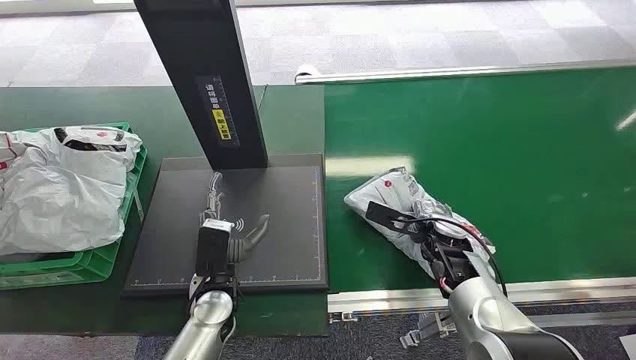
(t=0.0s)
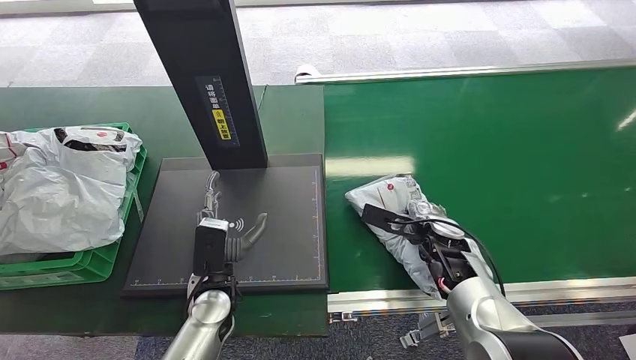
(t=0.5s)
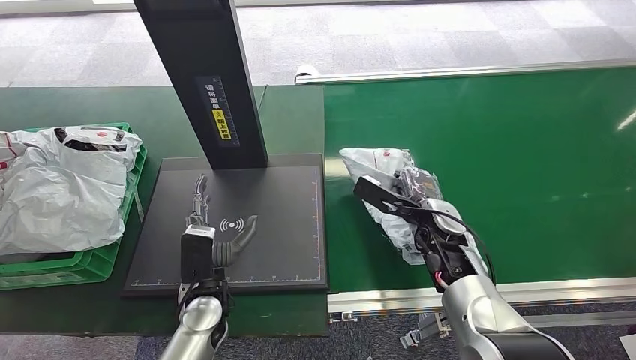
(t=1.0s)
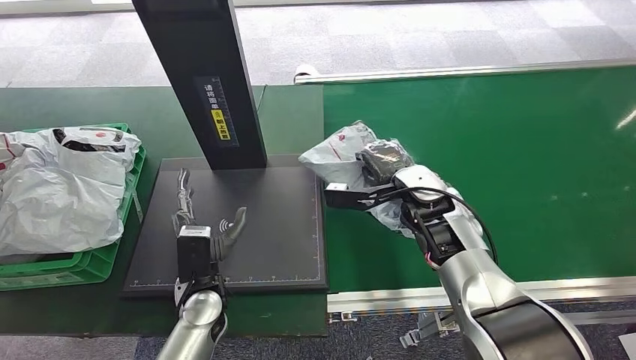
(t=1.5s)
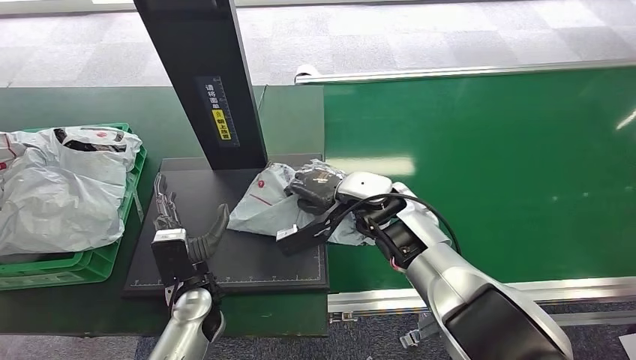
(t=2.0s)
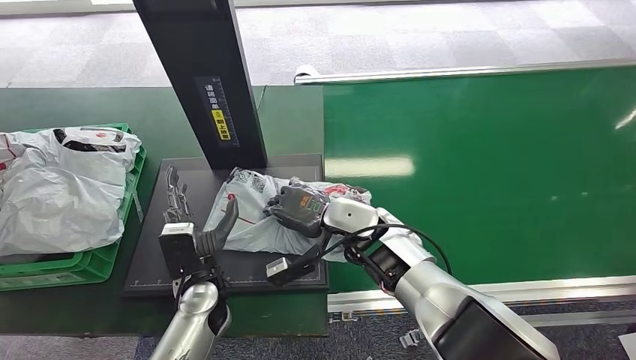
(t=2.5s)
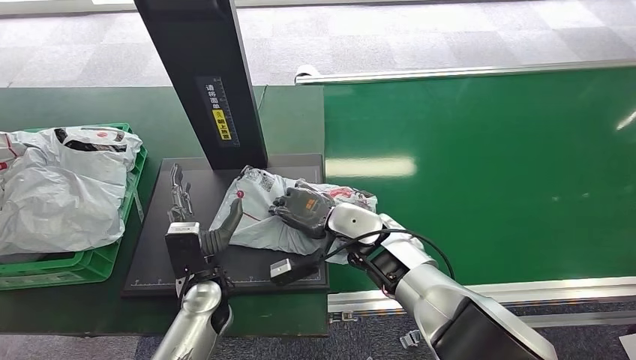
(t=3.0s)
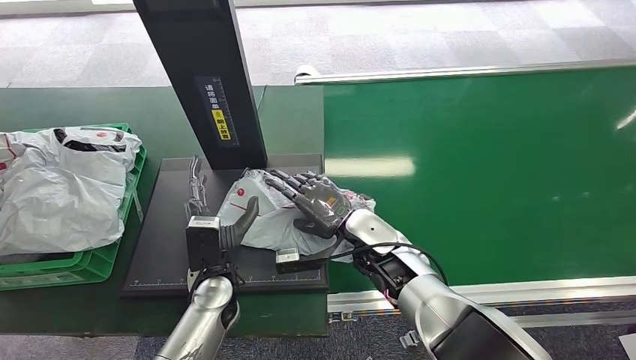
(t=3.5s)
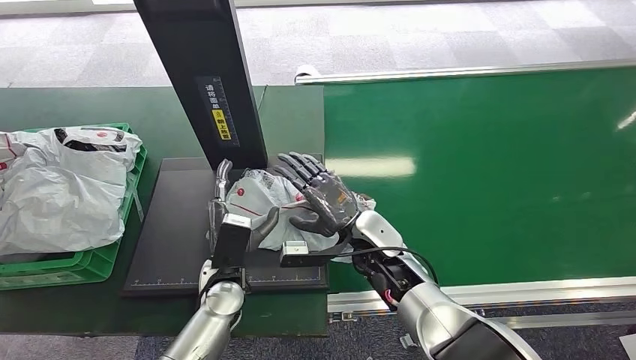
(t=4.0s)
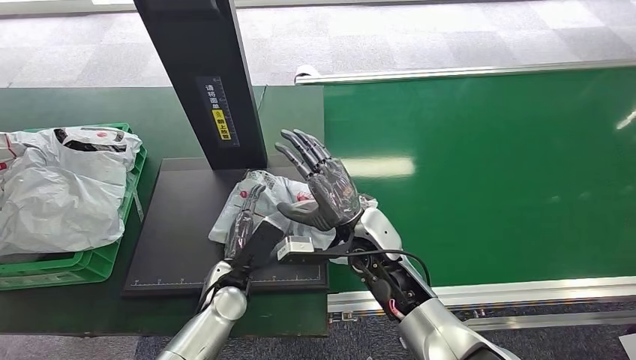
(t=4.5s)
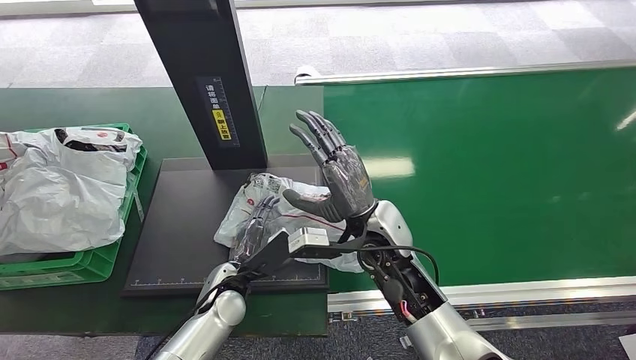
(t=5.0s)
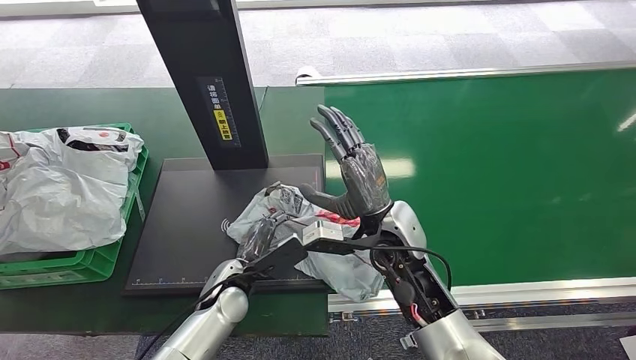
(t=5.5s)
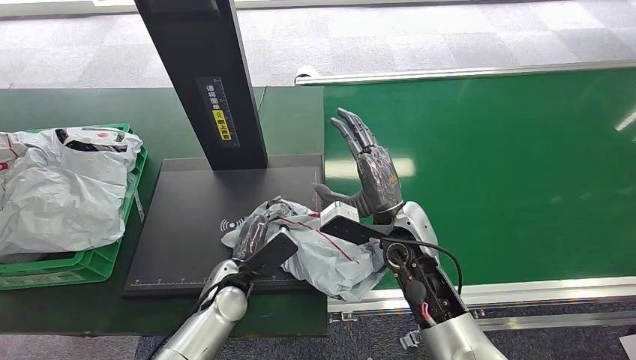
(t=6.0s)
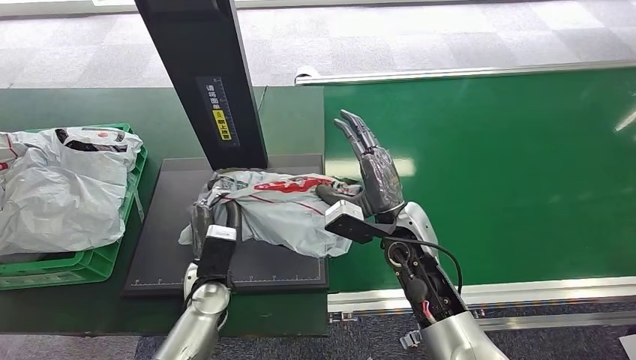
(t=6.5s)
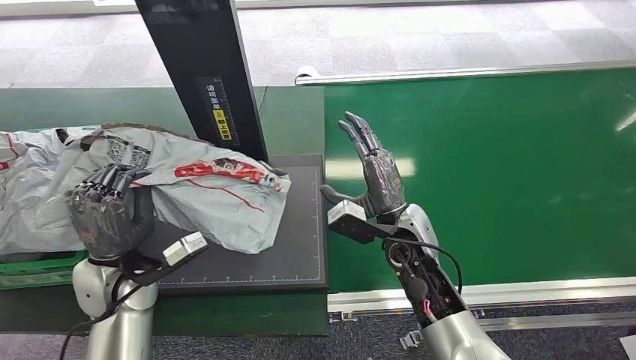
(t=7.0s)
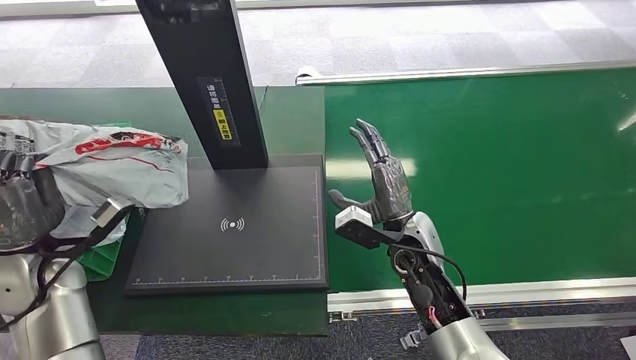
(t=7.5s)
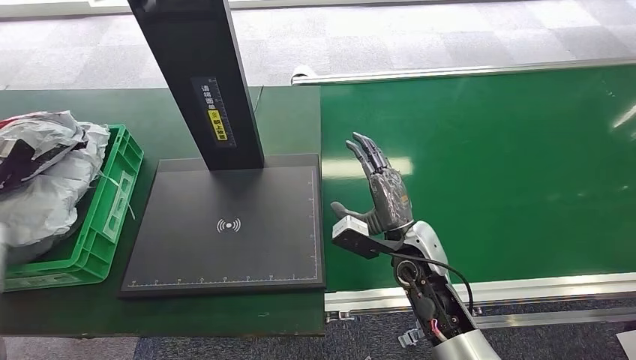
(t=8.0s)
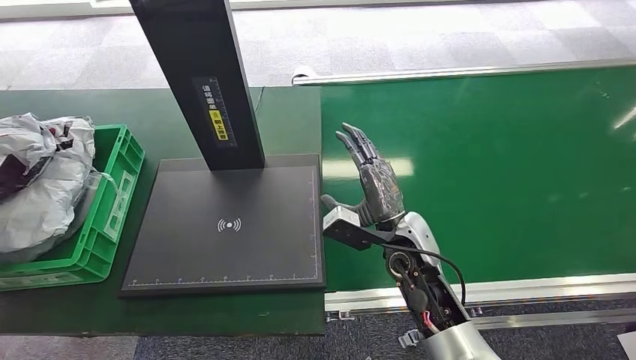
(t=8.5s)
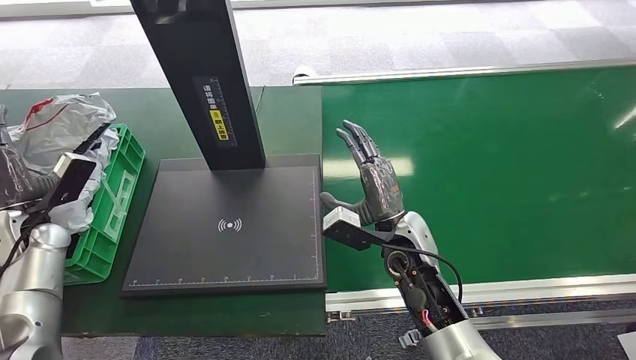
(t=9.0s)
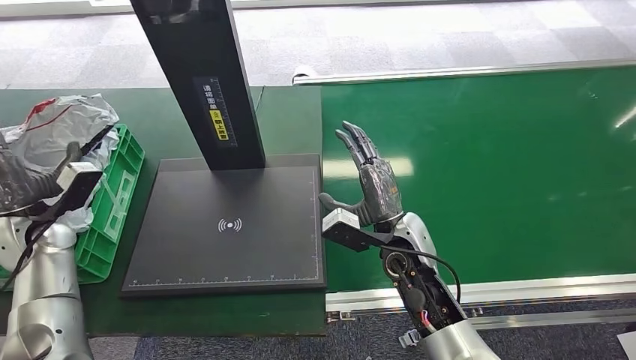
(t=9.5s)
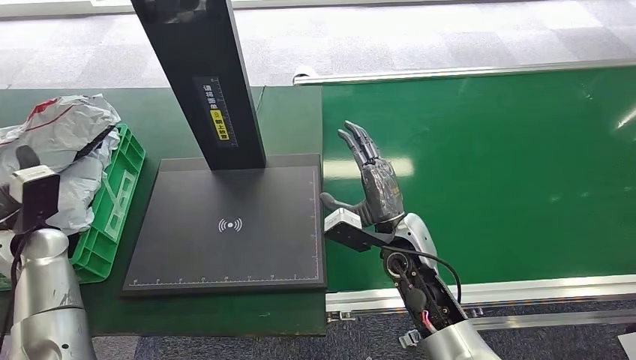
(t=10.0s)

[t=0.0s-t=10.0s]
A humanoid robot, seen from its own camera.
Step, t=0.0s to t=1.0s: Pick up the package from the conveyor belt.
Step, t=1.5s to t=4.5s: Place the package onto the inbound machine.
Step, t=5.0s to t=6.5s: Pick up the package from the inbound machine.
Step, t=7.5s to t=10.0s: Place the package into the parcel locker.
t=2.0s to t=4.0s: The right hand is displaced downward by roughly 10 cm.
t=4.0s to t=6.0s: The right hand travels upward by about 5 cm.
t=8.0s to t=10.0s: The left hand shifts some 15 cm to the right.

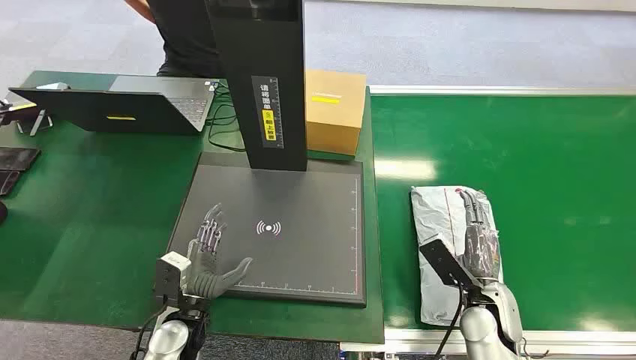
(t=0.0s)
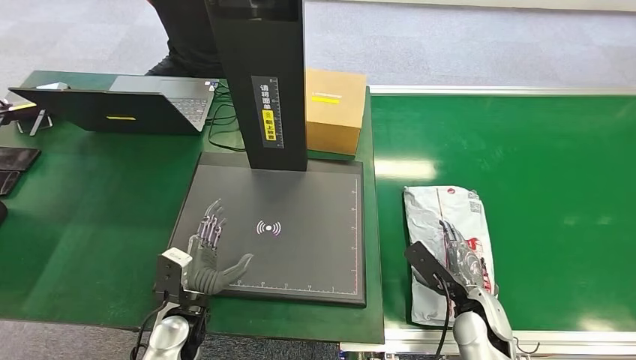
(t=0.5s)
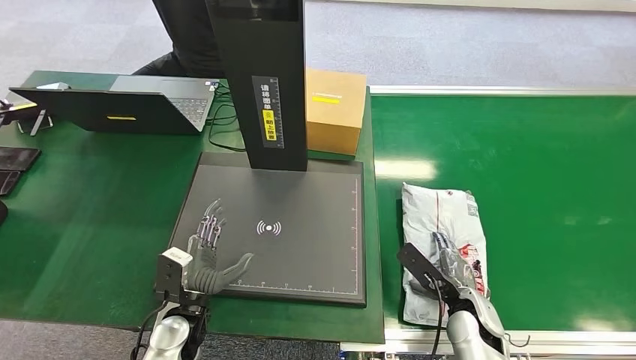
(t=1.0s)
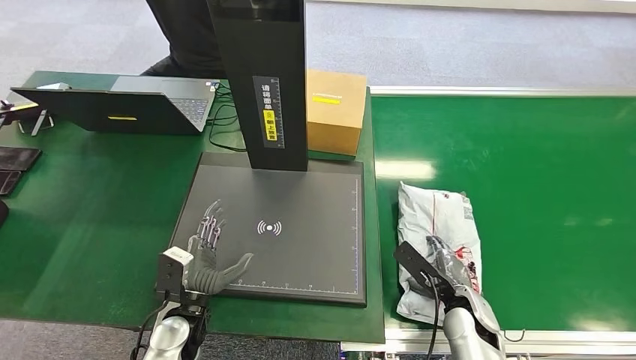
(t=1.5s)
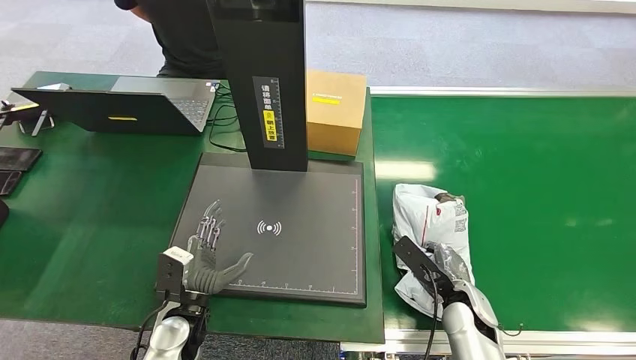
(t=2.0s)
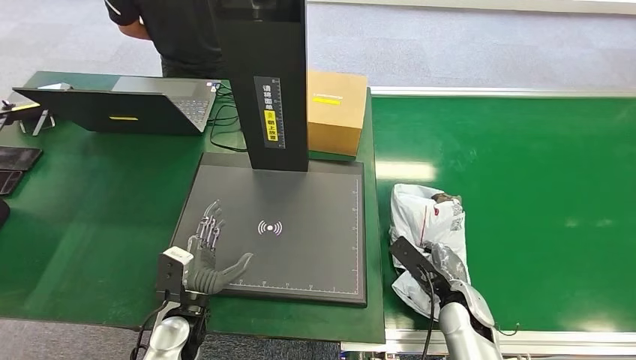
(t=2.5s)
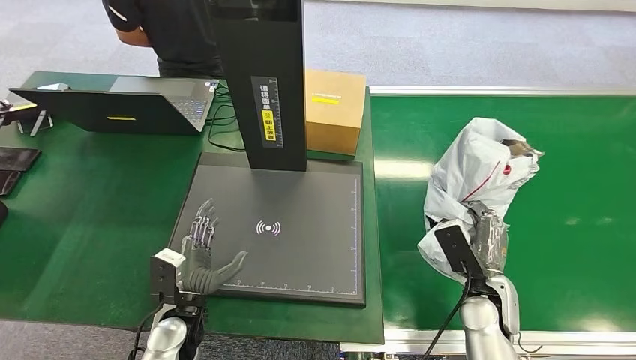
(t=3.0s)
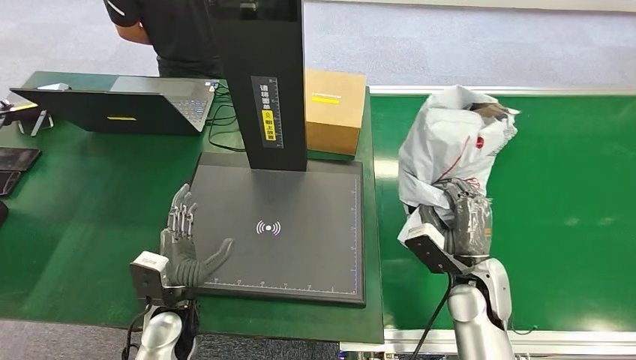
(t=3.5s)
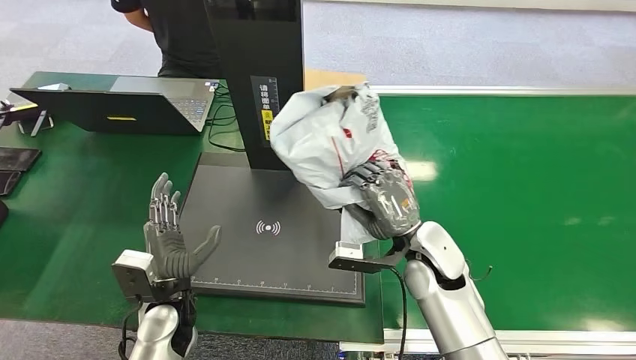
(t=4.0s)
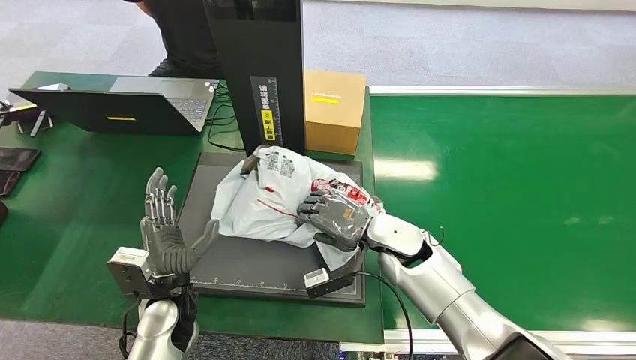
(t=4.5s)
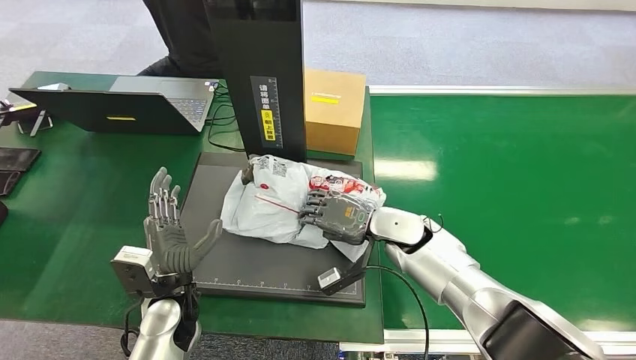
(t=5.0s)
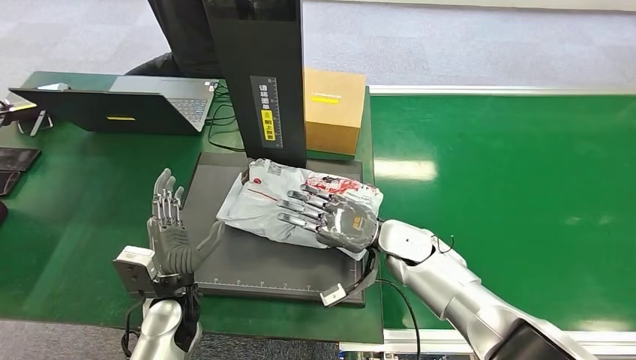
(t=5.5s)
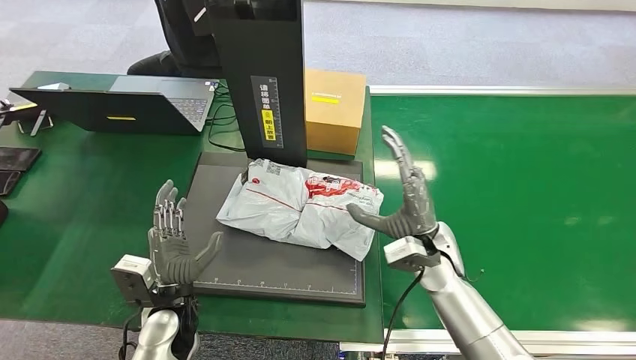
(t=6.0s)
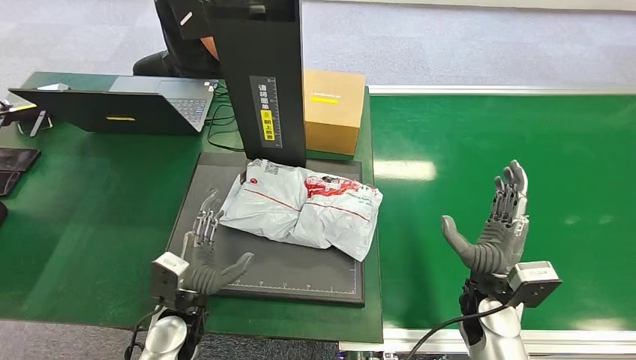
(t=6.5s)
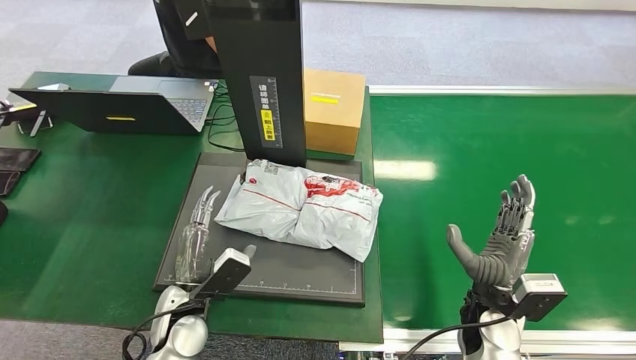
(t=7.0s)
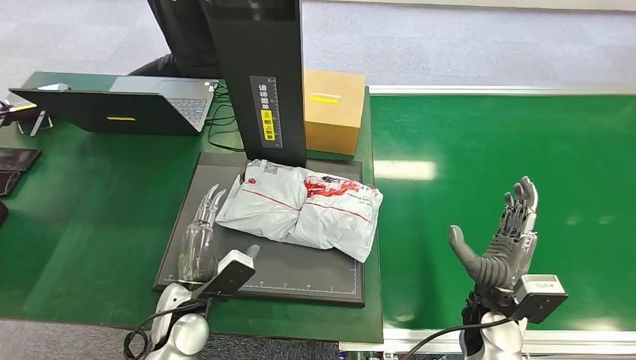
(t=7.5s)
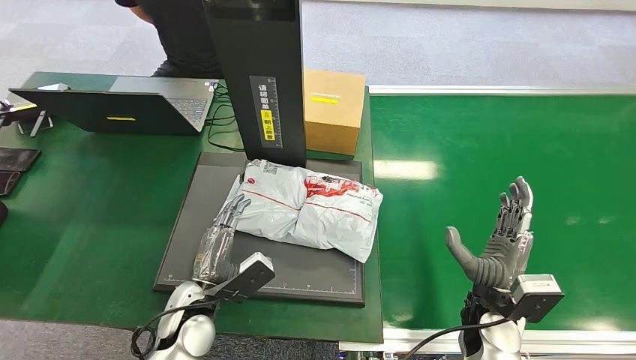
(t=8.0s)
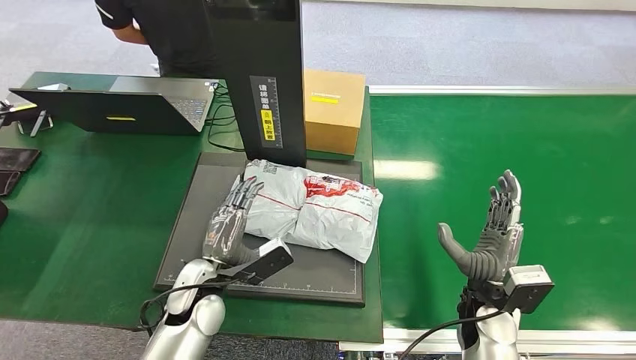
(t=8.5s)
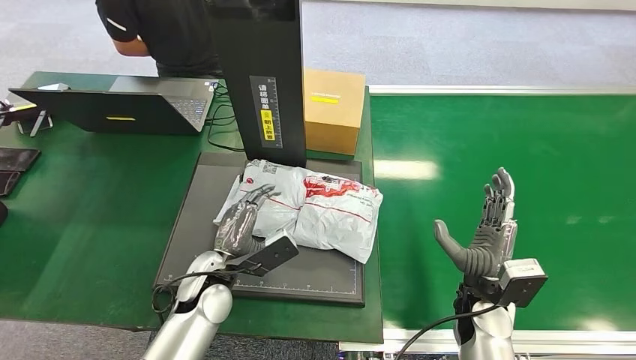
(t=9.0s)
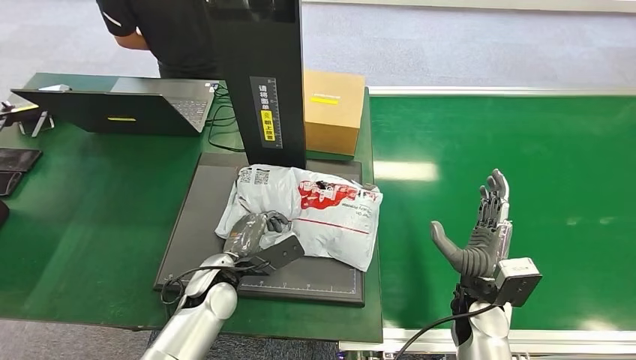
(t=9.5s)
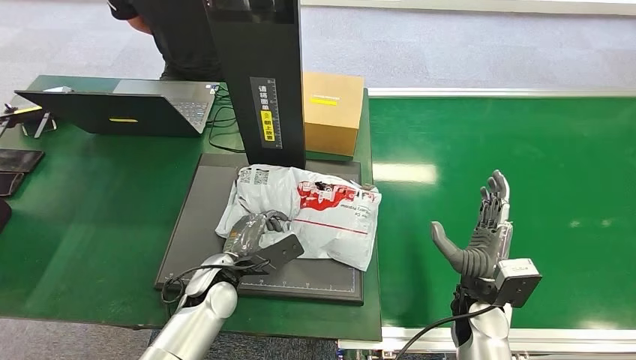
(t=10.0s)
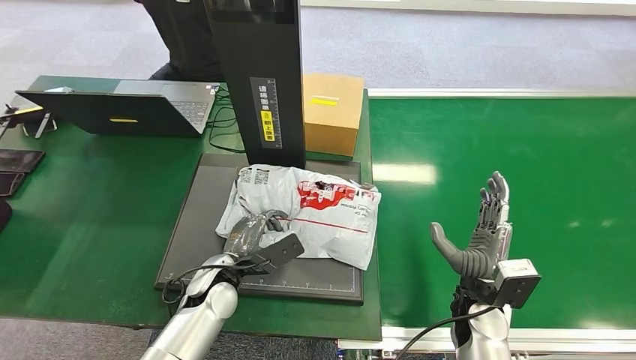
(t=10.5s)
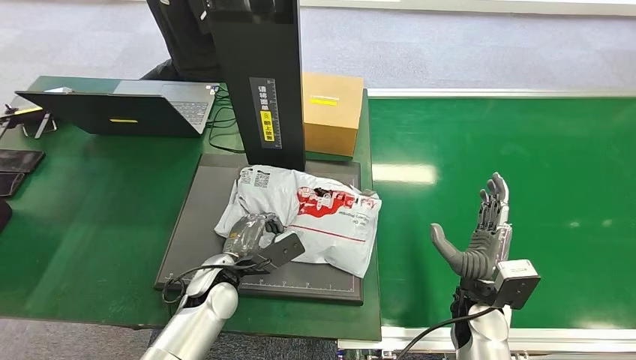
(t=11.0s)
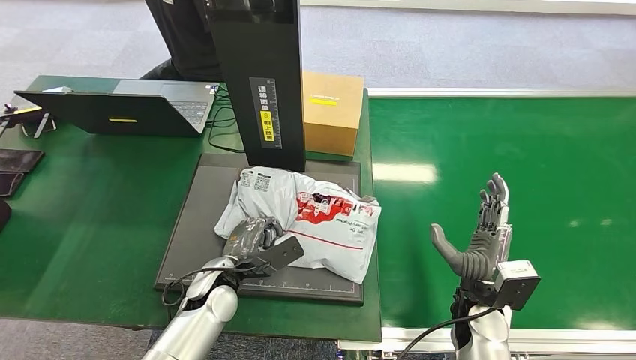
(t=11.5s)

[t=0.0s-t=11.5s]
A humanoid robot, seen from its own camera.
Step, t=0.0s to t=3.5s: Pick up the package from the conveyor belt.
Step, t=4.0s to t=8.5s: Place the package onto the inbound machine.
t=2.0s to t=4.0s: The right hand is displaced upward and to the left by about 15 cm.
t=6.0s to t=7.5s: The right hand shifts approximately 15 cm backward, to the right and downward.
t=7.5s to t=9.5s: The left hand is displaced forward by some 5 cm.
t=9.5s to t=11.5s: Both hands stay put.
